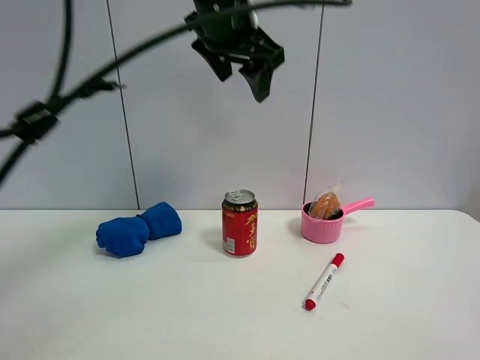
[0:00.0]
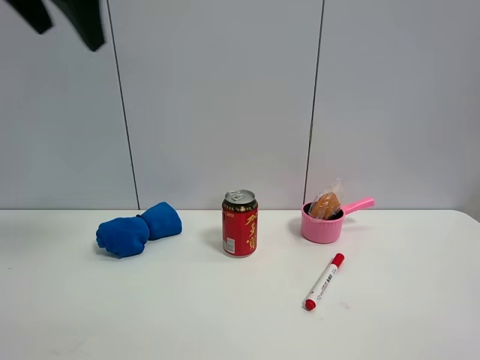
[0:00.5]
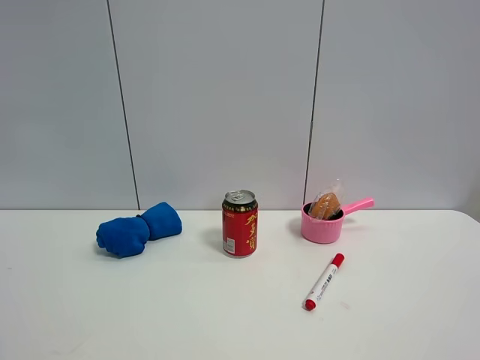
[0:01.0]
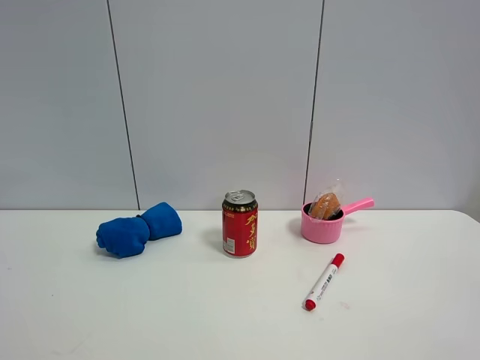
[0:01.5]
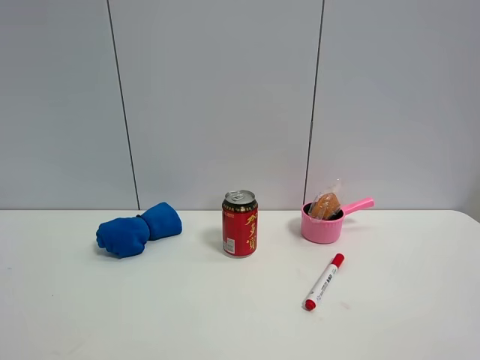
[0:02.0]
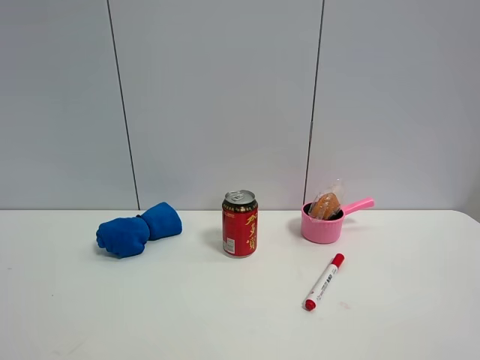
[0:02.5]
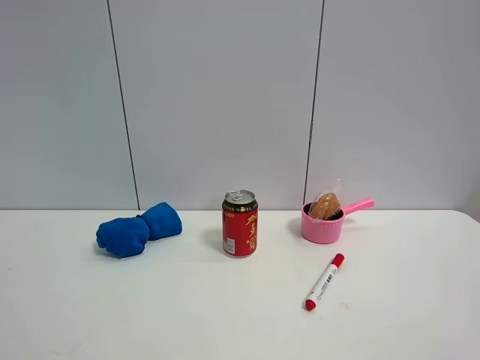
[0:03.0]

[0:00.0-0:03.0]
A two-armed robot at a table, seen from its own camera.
Task of the whole recording: the gripper move the object.
0:00.0 to 0:01.5: The left gripper travels backward and to the left by about 50 cm.

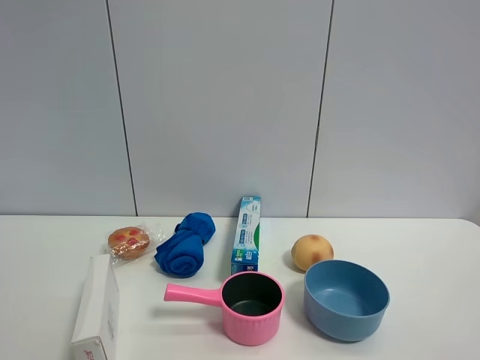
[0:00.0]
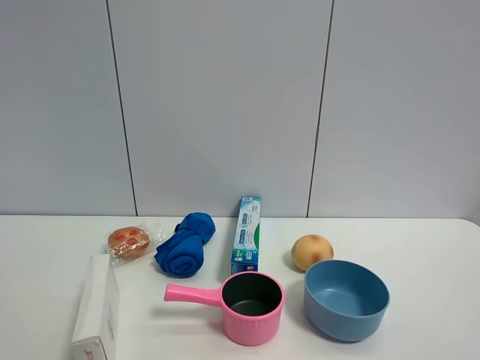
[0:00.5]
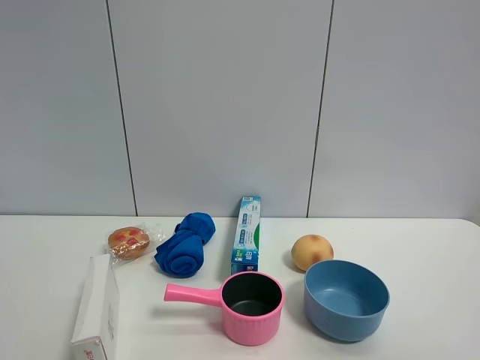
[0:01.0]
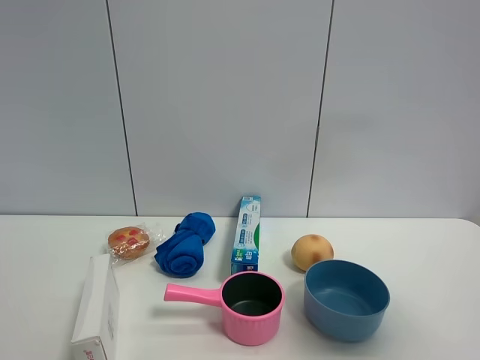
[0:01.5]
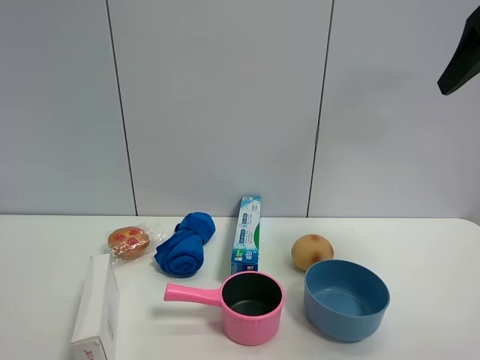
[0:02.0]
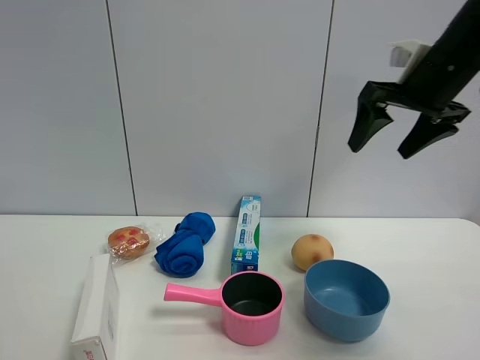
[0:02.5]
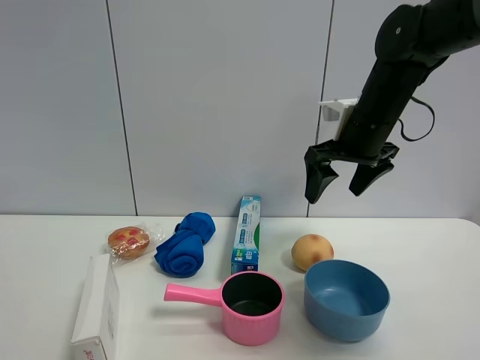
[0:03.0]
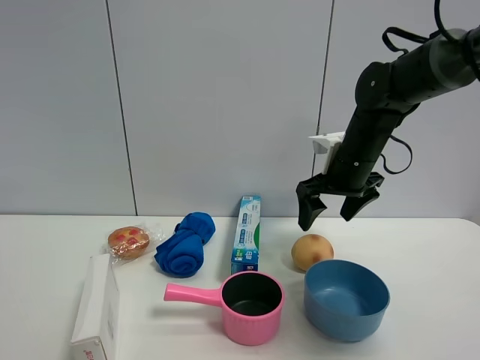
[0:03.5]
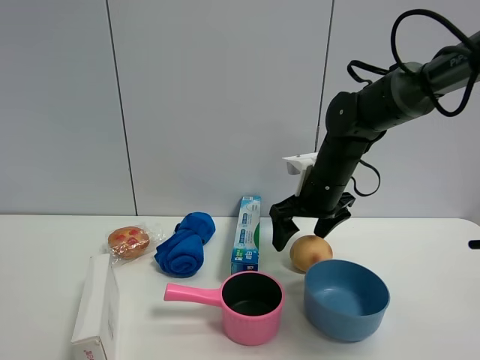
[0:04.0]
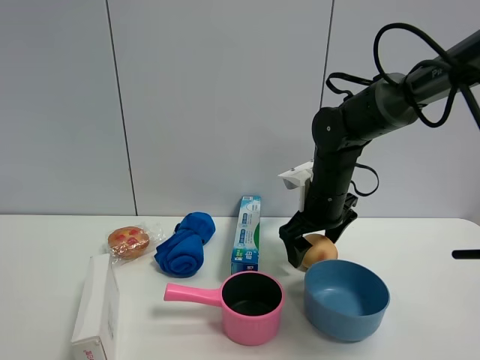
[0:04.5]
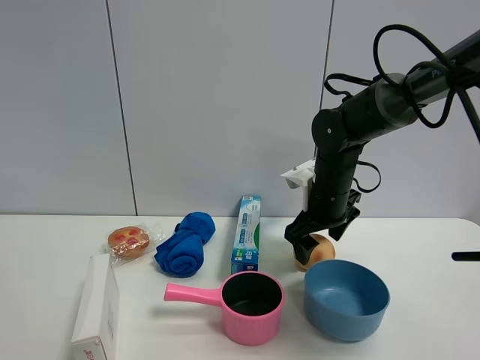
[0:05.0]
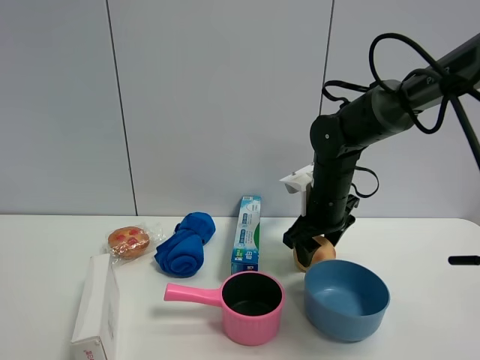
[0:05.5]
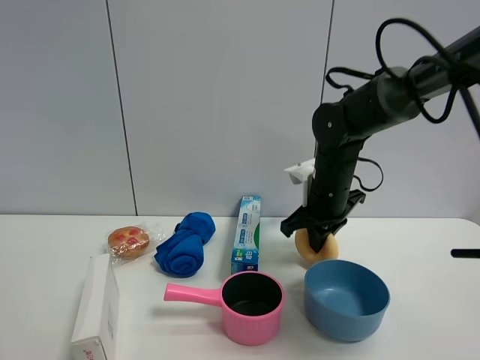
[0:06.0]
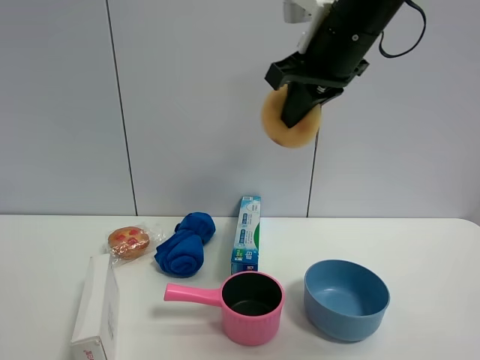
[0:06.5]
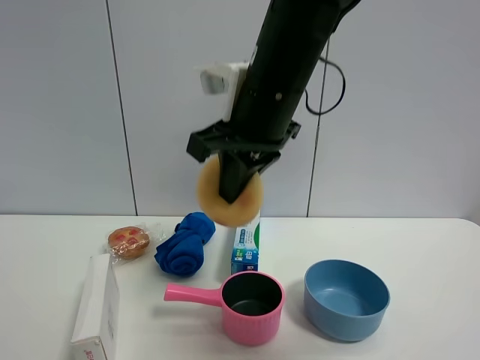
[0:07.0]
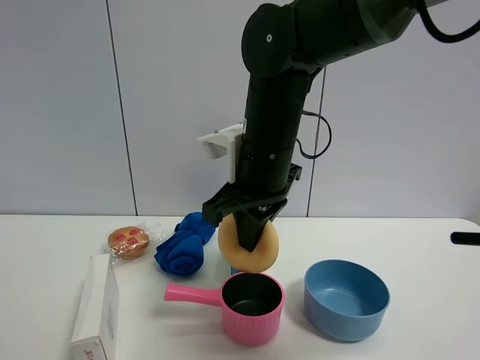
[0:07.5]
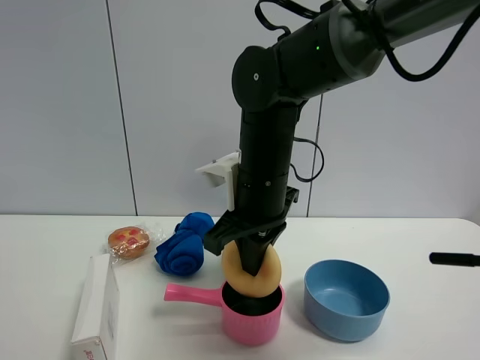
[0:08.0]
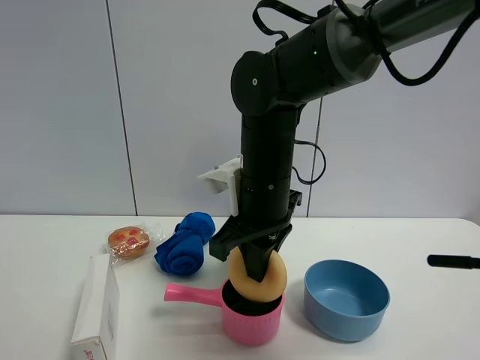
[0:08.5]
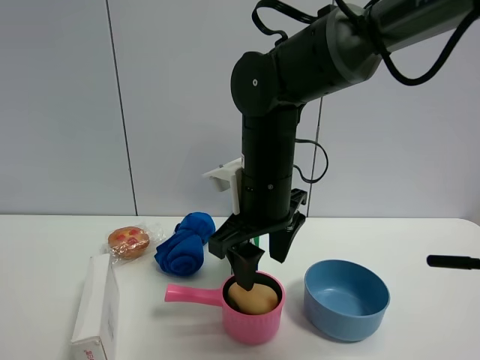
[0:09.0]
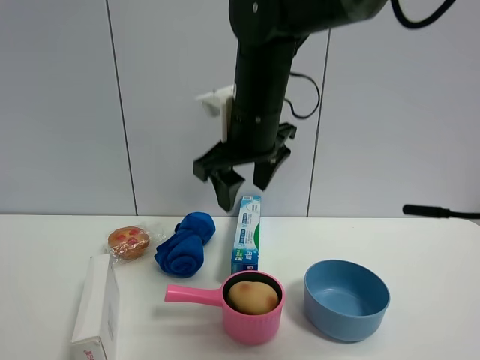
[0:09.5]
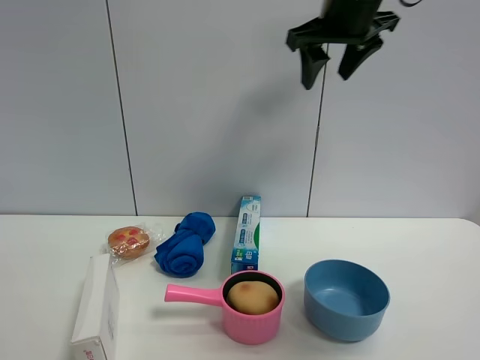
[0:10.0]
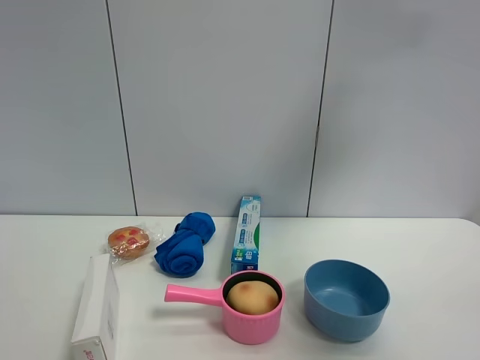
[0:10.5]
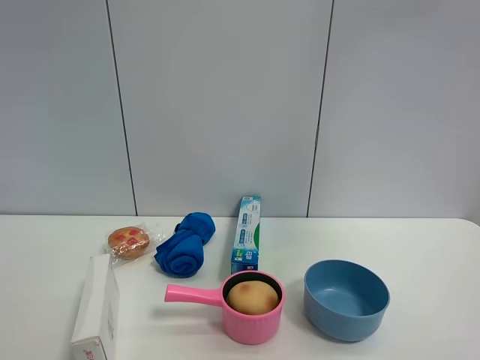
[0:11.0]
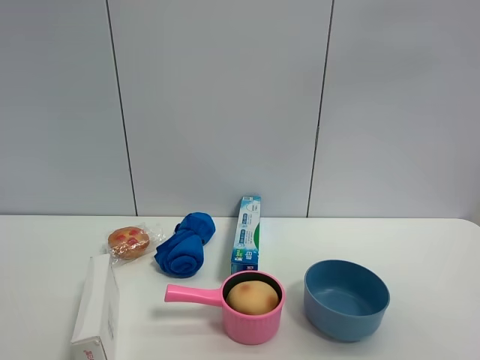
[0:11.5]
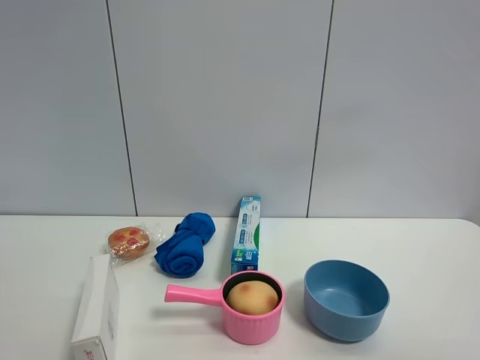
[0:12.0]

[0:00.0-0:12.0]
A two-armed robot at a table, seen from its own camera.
Task of the whole recording: the gripper move the object.
Step, 0:00.0 to 0:05.5: Grasp the egg yolk pastry with the right gripper.
Step, 0:06.0 to 0:09.0: Place the egg yolk pastry into the pink pot with the right gripper.
0:00.0 to 0:02.0: The right gripper shifts some 30 cm forward.
0:02.0 to 0:04.0: The right gripper is displaced downward, to the left and forward by about 30 cm.
0:04.0 to 0:06.0: The right gripper closes its fingers.
0:06.0 to 0:08.0: The right gripper is displaced to the left and backward by about 15 cm, and travels upward and back again, about 20 cm each way.
0:08.0 to 0:10.0: The right gripper is displaced upward, to the right and forward by roughly 25 cm, and opens.
0:10.0 to 0:12.0: The right gripper heads backward and to the right, covering about 50 cm.

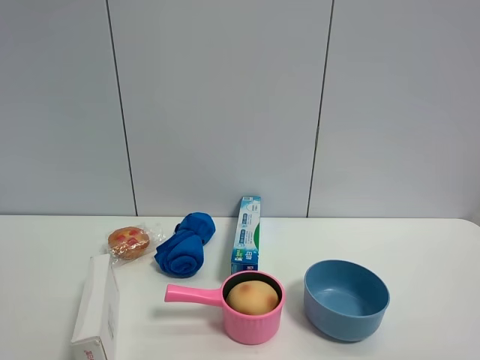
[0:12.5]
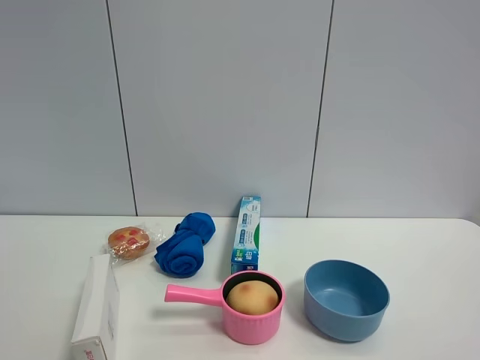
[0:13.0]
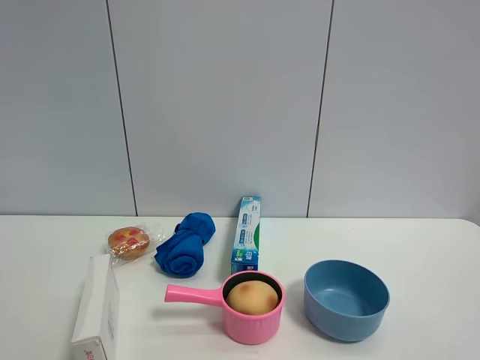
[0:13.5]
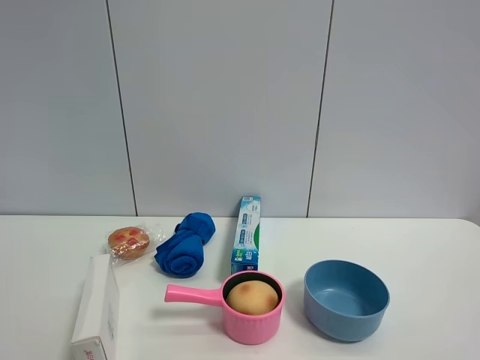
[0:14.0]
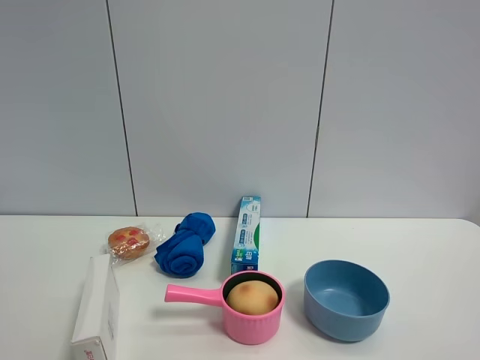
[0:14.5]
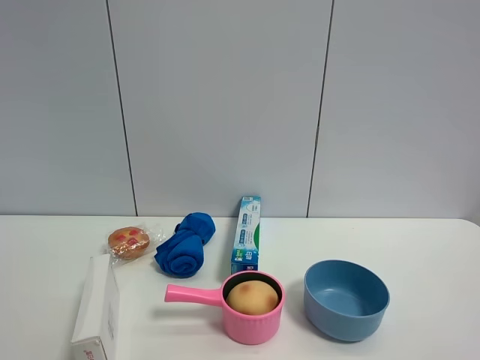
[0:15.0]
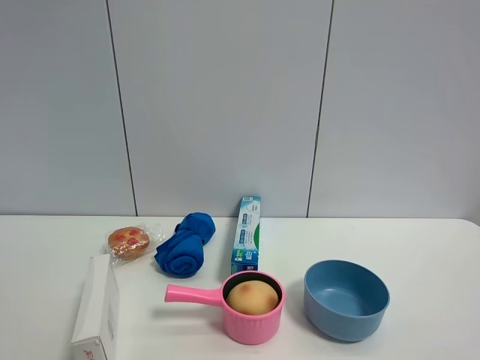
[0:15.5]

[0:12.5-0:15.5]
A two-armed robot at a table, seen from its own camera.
Task of the whole recording: the gripper move the object.
0:14.0 to 0:15.5: The two grippers keep their place.

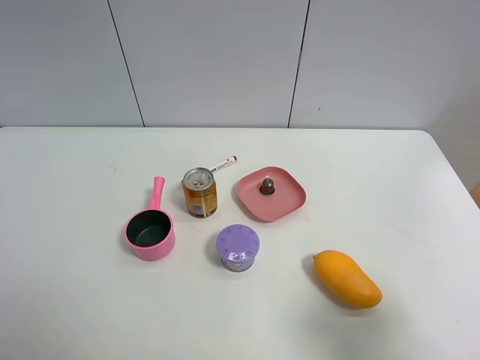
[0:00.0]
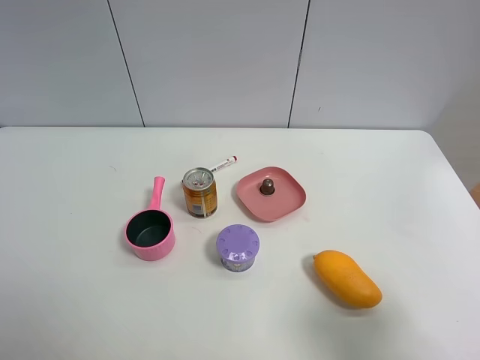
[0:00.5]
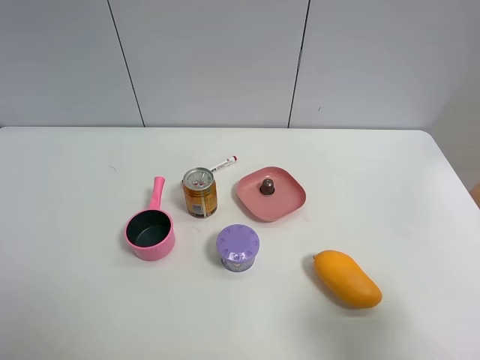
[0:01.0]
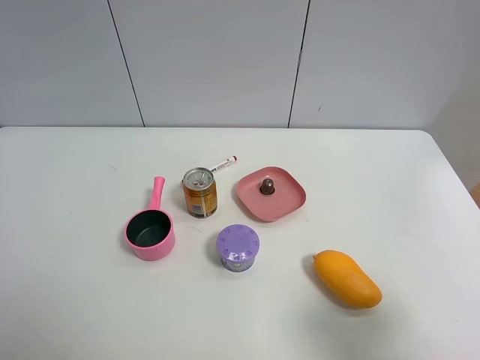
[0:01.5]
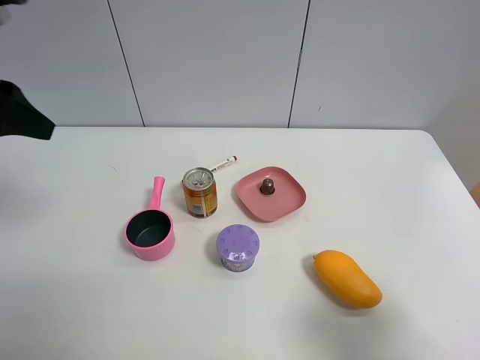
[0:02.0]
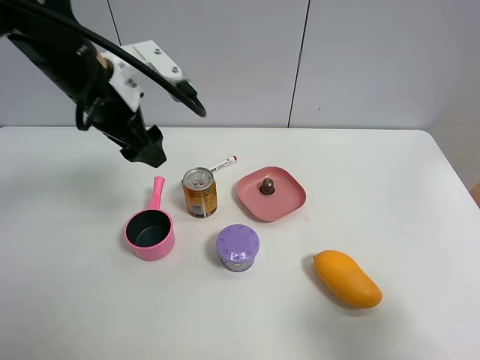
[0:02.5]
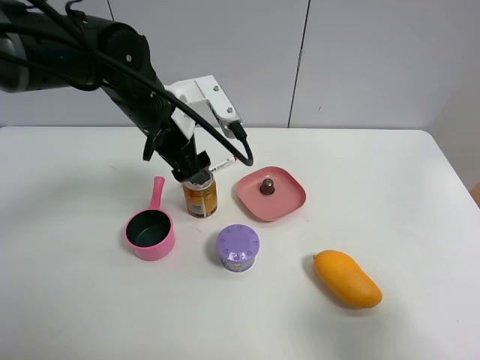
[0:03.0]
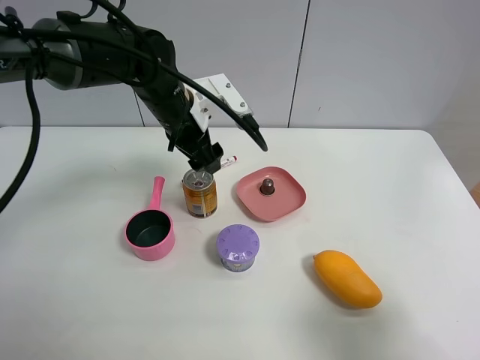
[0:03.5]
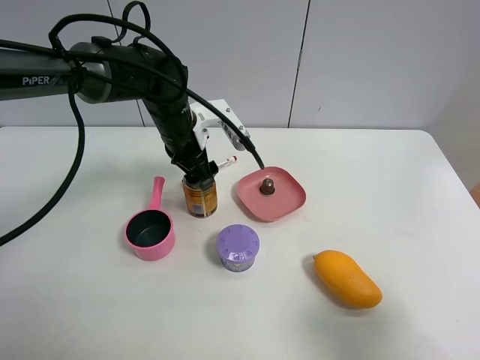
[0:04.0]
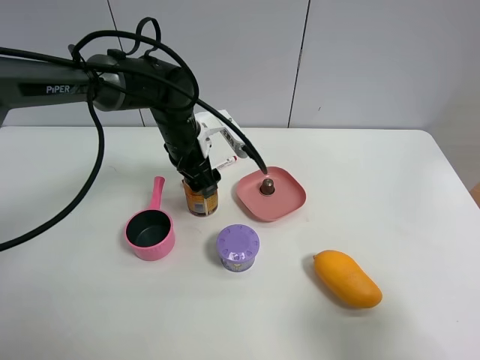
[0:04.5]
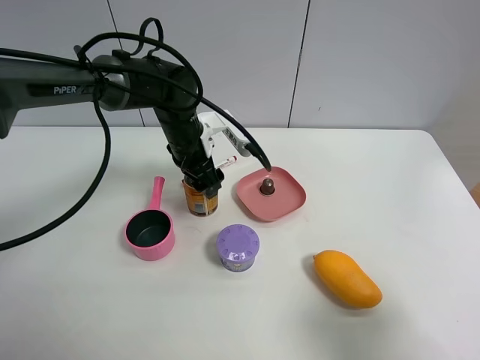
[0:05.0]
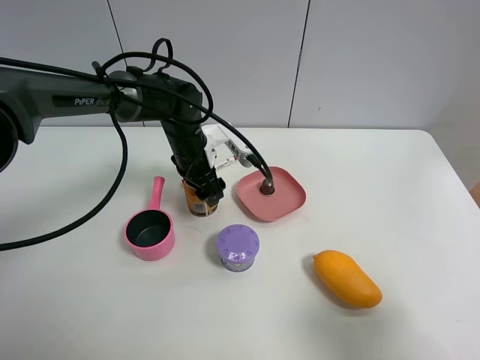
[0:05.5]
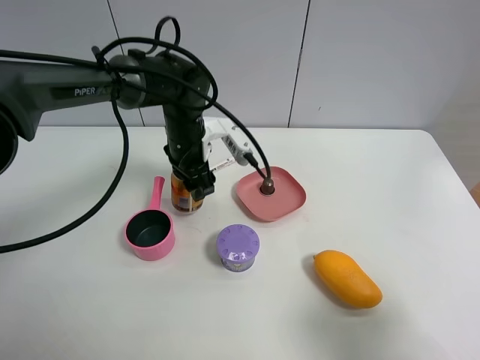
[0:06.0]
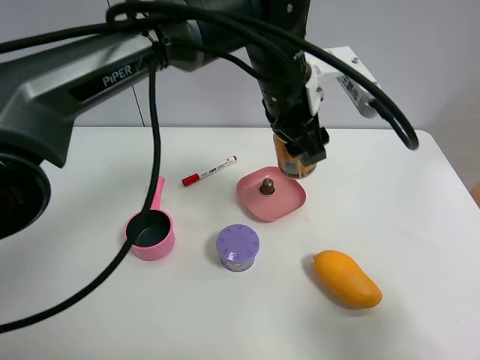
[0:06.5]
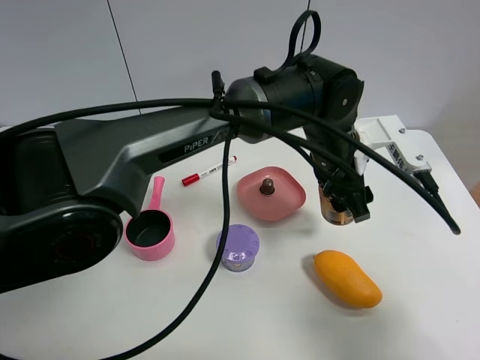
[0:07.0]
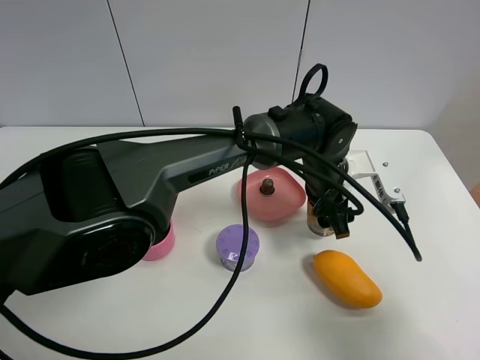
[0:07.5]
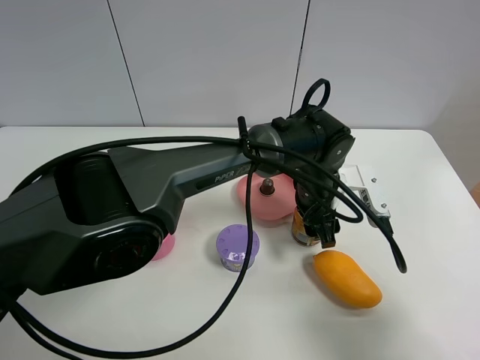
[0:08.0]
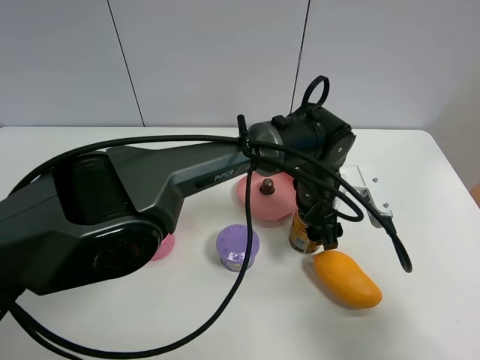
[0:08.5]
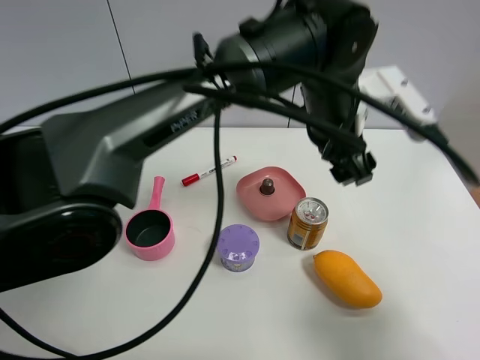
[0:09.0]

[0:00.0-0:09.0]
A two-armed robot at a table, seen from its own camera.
Task of the whole recording: the gripper move the object.
Step, 0:00.0 to 0:05.5: Grasp the red bull with the left gripper.
Step, 0:06.0 to 0:09.0: Place the red bull on the table with the left gripper.
0:00.0 to 0:02.0: The left gripper shifts about 25 cm forward.
0:02.0 to 0:04.5: The left gripper shifts about 30 cm to the right, downward and forward.
0:04.5 to 0:07.0: The left gripper is displaced to the right and backward by some 25 cm, and closes up.
0:07.0 to 0:09.0: The left gripper heads upward, covering some 10 cm, and opens.
